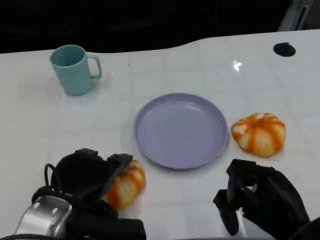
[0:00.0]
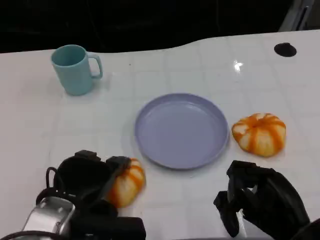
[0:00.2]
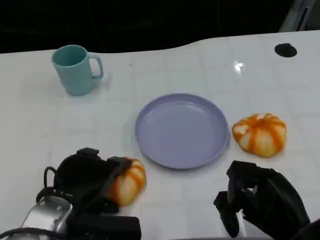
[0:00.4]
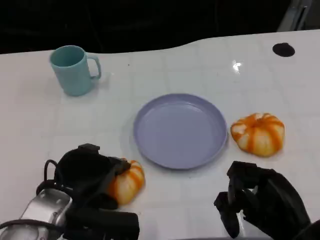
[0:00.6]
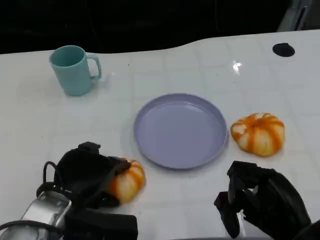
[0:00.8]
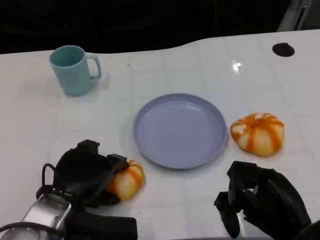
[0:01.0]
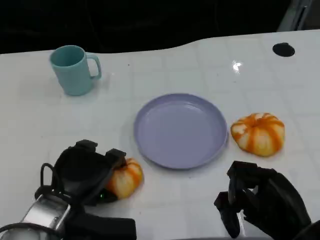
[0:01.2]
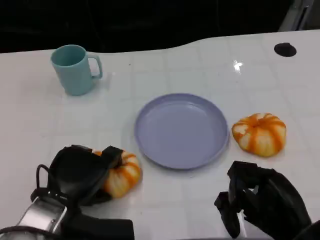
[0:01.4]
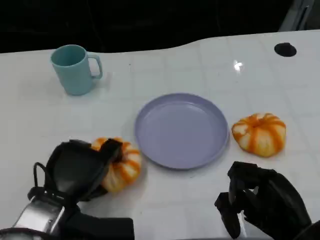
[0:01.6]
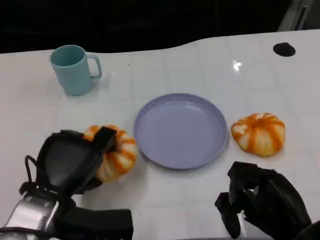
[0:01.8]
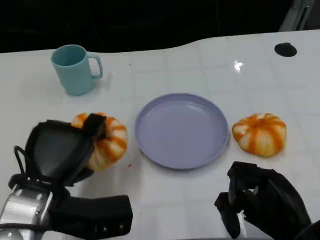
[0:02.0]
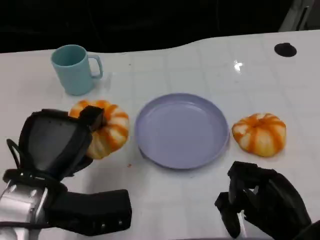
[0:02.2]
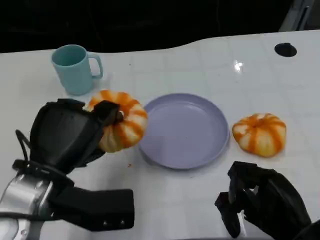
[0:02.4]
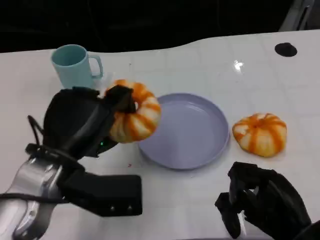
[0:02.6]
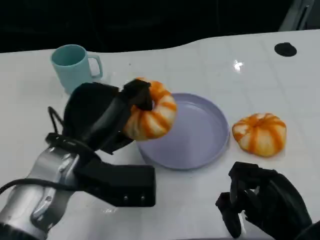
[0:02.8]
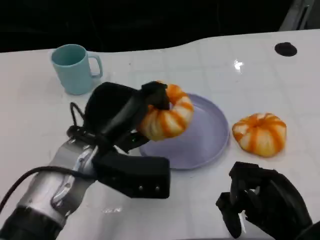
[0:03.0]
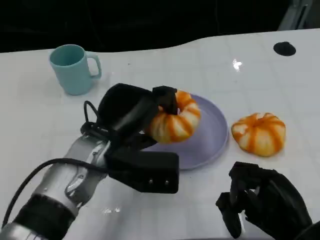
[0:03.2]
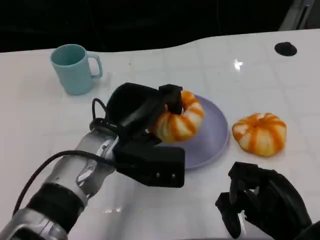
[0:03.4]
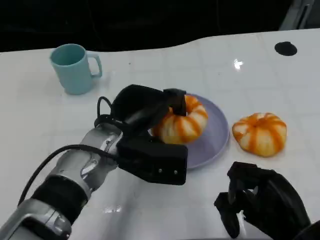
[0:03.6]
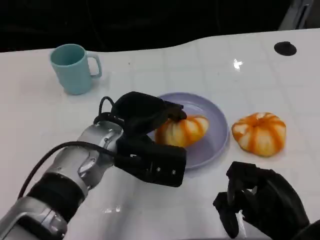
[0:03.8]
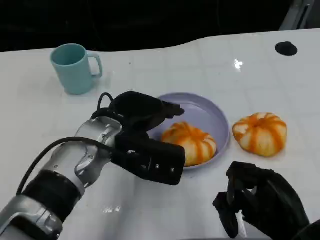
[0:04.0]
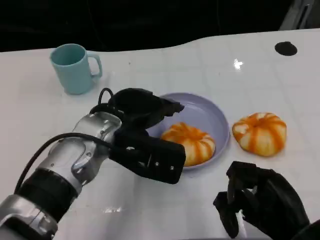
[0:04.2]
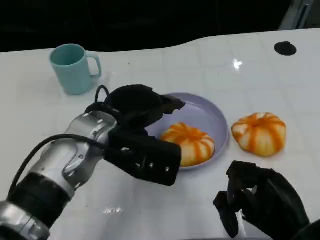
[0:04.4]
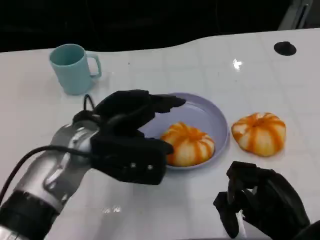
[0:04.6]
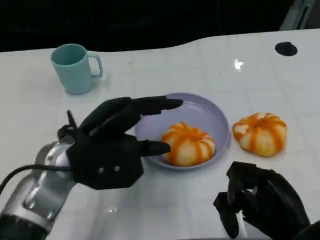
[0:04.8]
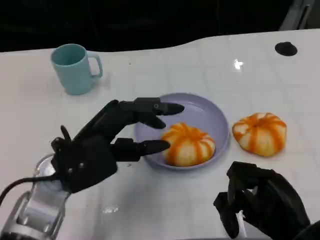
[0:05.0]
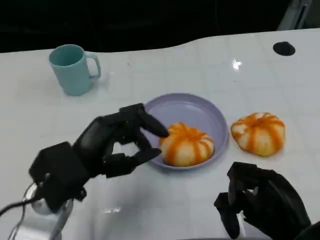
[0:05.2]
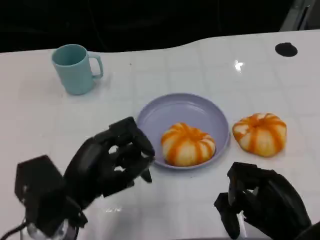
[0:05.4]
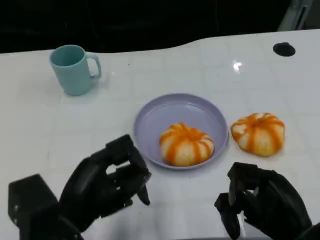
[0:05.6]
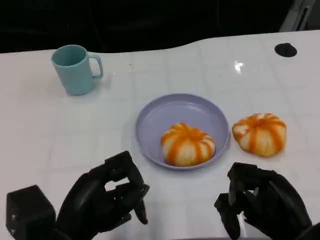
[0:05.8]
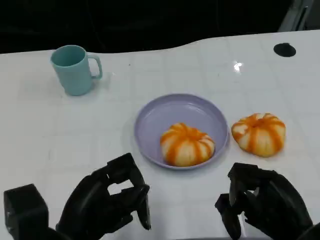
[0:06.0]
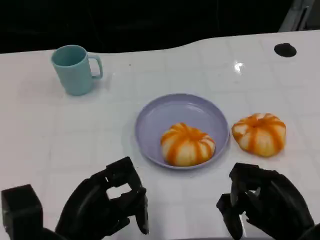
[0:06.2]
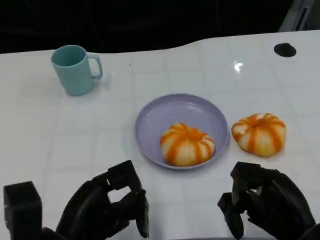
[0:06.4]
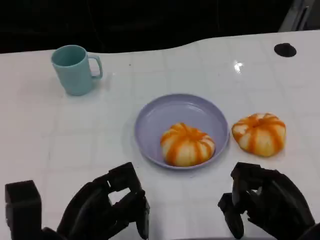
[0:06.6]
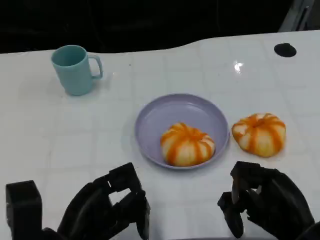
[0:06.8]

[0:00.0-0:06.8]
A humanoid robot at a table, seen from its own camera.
Task of the whole recording: Grasp the bread from the table and place it into the plate.
0.0 to 1.4 s: The hands stay close to where they were, moving slightly.
1.4 to 2.8 s: The left hand heads upward, covering about 10 cm.
2.8 to 4.0 s: The left hand ends up some 5 cm from where it was.
4.0 to 5.4 s: The left hand travels backward and to the left by roughly 15 cm.

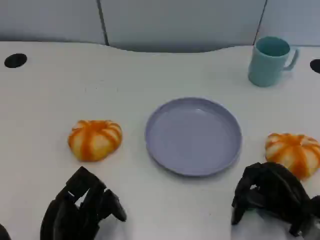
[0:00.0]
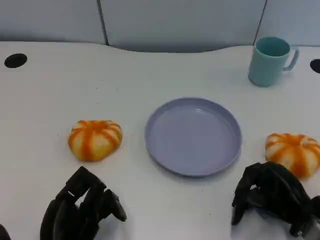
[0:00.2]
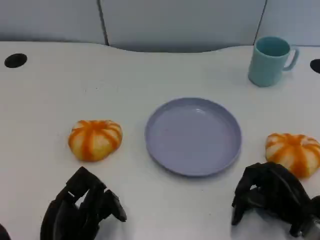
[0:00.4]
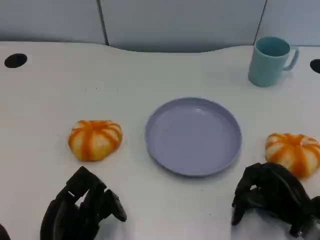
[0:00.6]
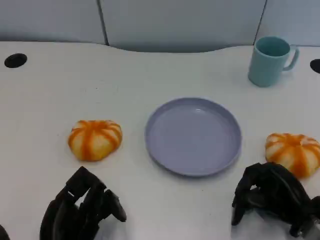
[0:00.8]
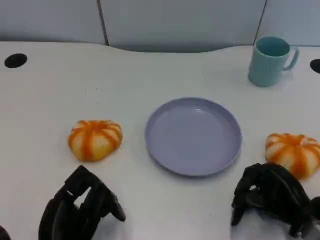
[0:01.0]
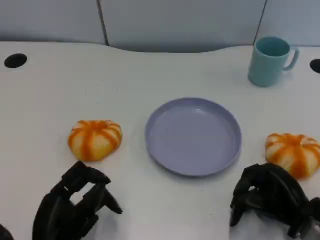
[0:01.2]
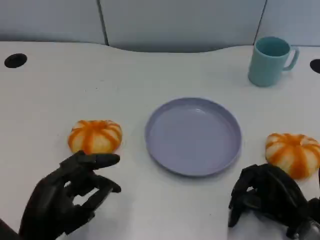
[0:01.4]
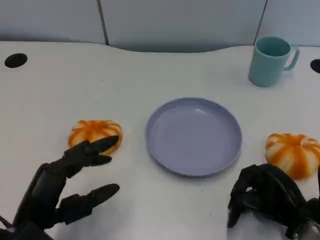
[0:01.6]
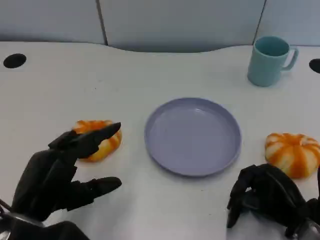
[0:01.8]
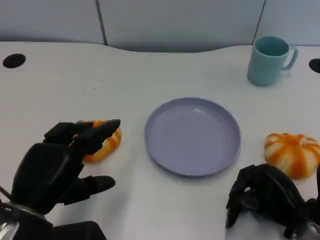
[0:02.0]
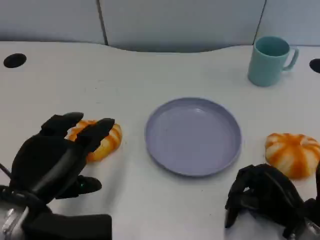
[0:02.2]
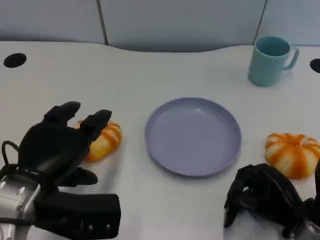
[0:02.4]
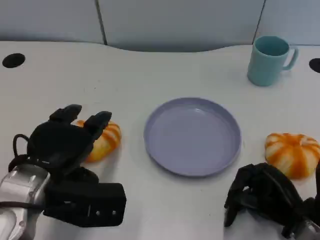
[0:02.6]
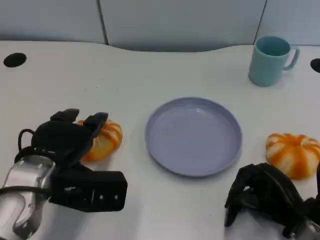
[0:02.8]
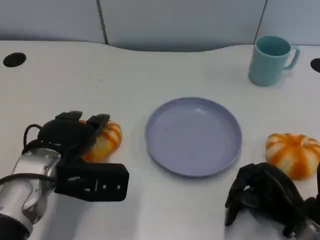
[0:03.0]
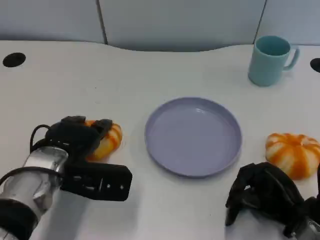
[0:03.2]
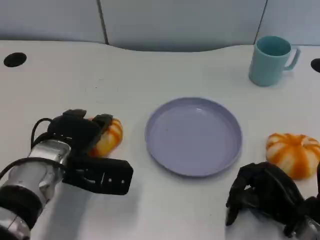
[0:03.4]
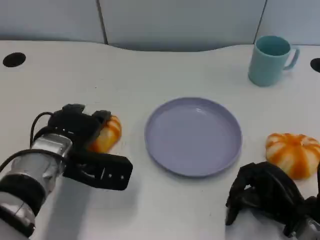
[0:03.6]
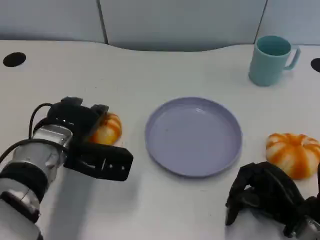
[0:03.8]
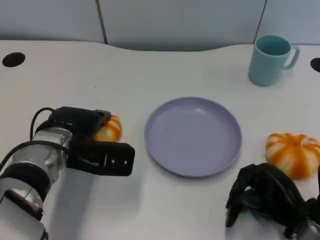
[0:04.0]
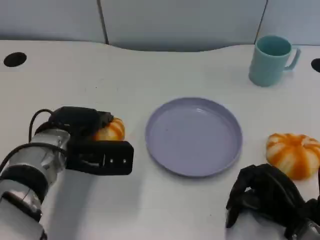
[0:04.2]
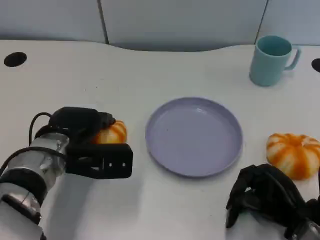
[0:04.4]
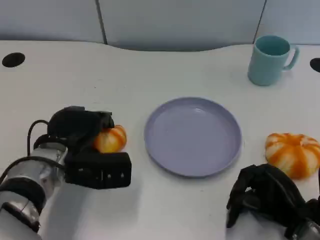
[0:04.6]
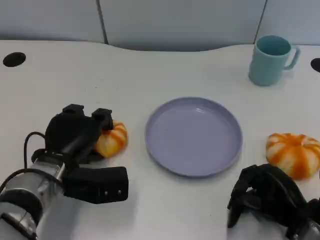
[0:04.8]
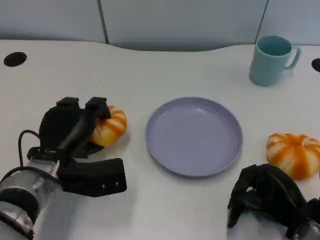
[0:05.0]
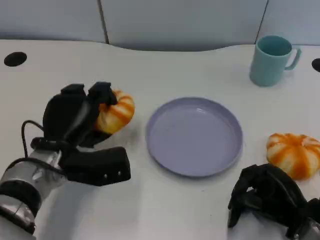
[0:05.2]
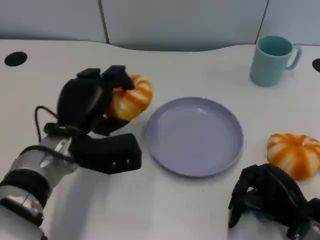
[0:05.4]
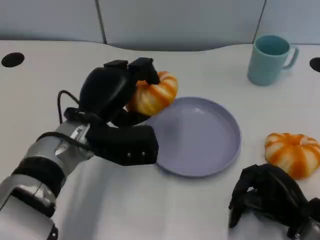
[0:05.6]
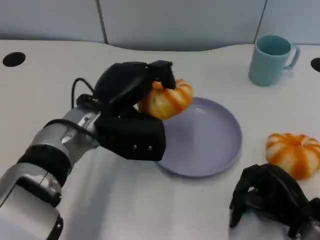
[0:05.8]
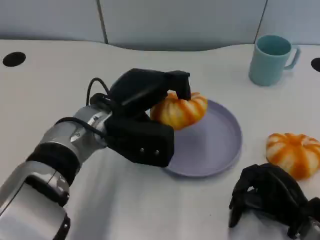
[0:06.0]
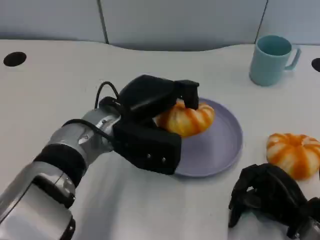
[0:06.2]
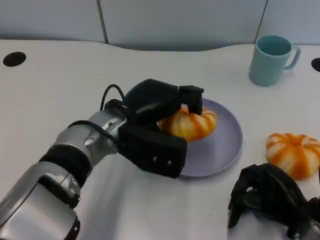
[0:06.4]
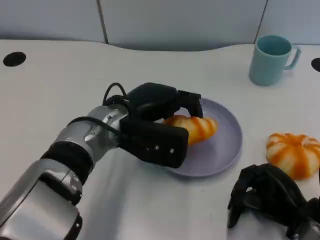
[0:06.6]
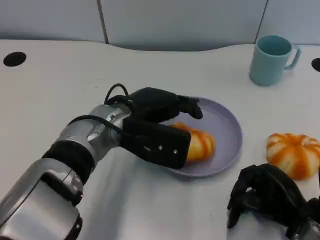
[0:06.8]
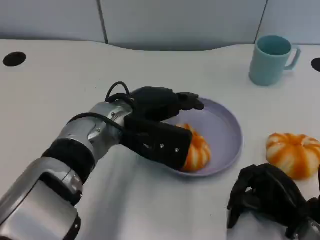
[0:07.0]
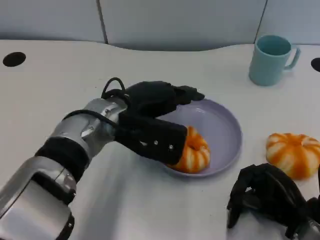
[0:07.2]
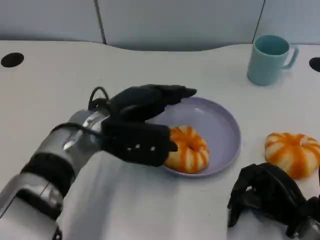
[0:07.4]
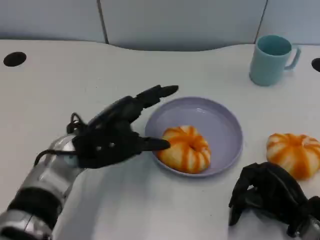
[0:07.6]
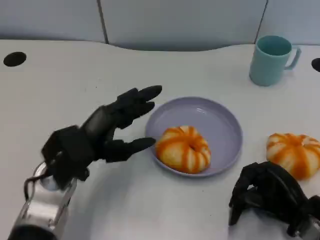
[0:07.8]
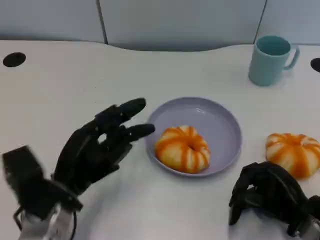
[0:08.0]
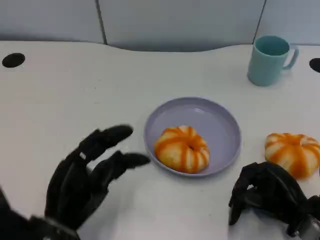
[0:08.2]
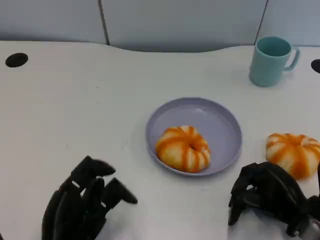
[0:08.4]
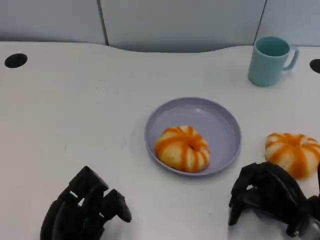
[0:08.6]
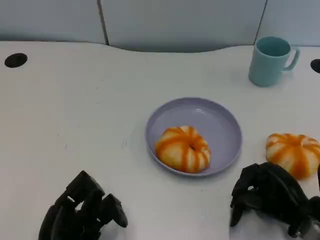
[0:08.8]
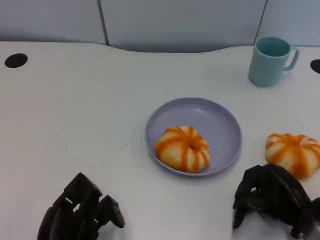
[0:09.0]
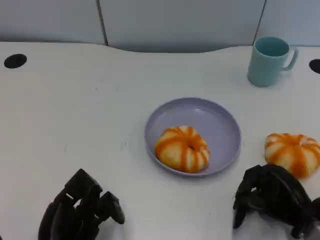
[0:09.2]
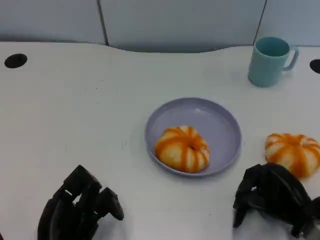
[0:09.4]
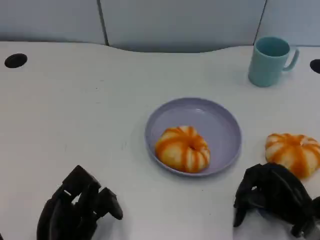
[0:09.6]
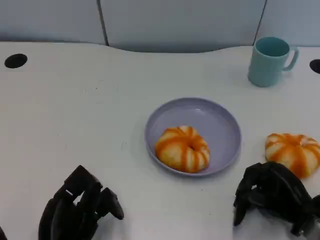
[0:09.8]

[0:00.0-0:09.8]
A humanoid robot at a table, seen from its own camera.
Task of the whole recording: Grasp the bread from the table and place it into the plate.
1.4 to 2.8 s: The left hand shifts about 10 cm forward.
2.8 to 4.2 s: The left hand heads forward, covering roughly 5 cm.
4.2 to 5.6 s: The left hand shifts by approximately 5 cm.
7.0 to 8.4 s: The left hand is displaced backward, to the left and downward by about 25 cm.
8.4 to 9.8 s: There are only small adjustments of the hands.

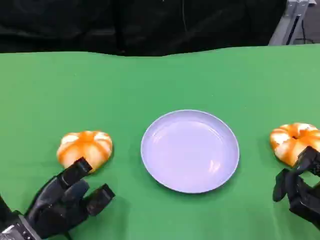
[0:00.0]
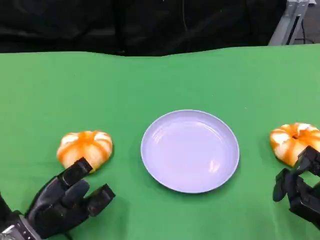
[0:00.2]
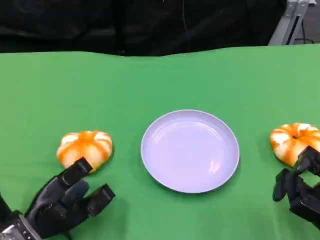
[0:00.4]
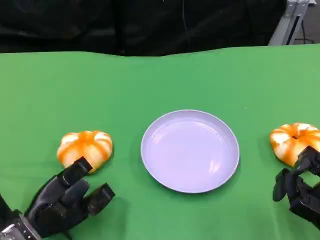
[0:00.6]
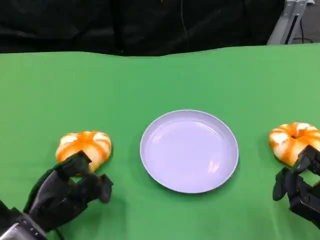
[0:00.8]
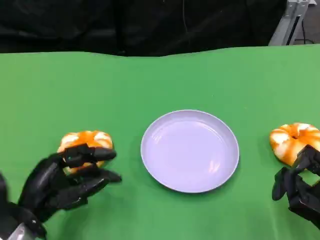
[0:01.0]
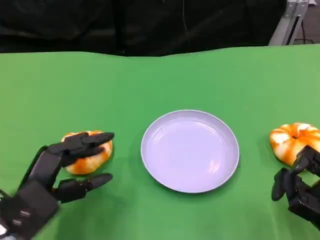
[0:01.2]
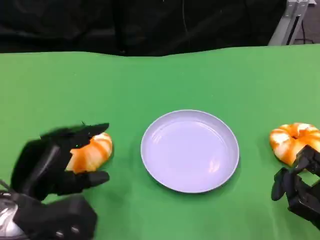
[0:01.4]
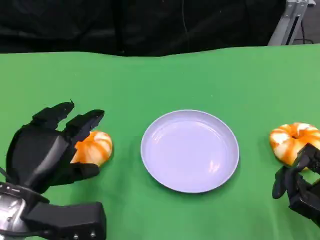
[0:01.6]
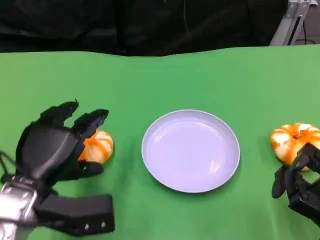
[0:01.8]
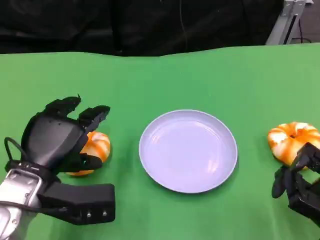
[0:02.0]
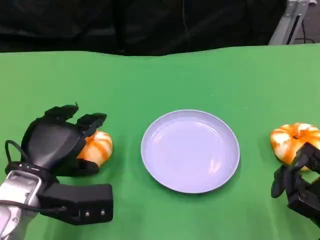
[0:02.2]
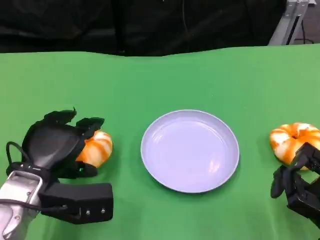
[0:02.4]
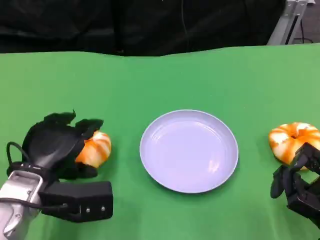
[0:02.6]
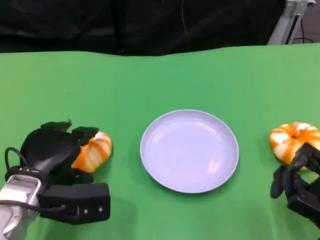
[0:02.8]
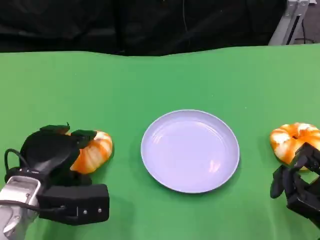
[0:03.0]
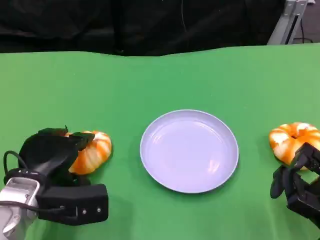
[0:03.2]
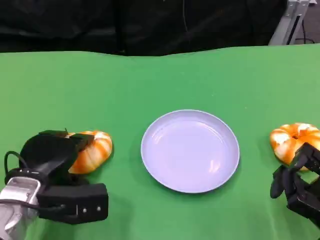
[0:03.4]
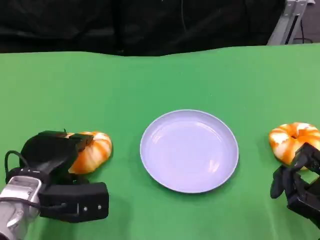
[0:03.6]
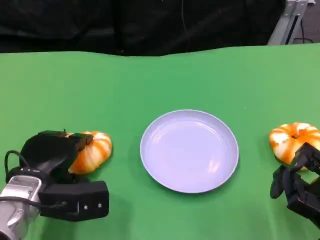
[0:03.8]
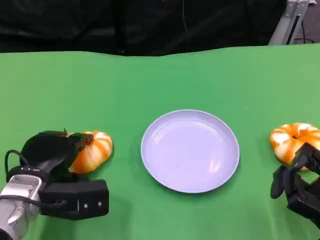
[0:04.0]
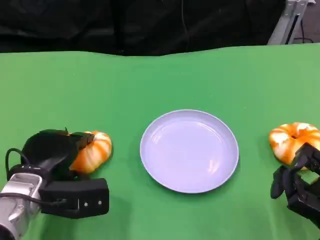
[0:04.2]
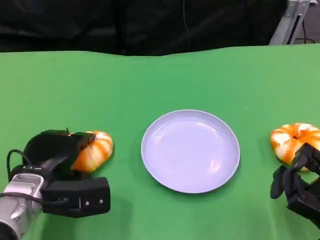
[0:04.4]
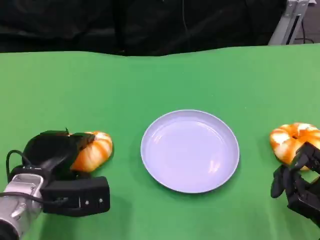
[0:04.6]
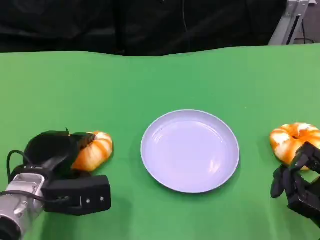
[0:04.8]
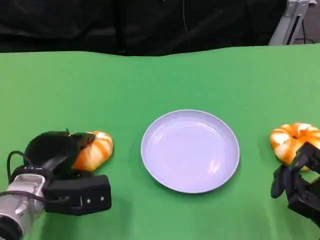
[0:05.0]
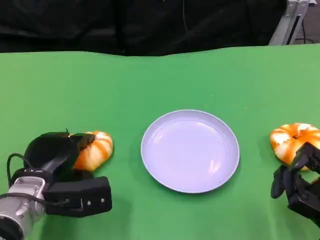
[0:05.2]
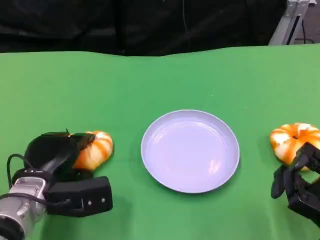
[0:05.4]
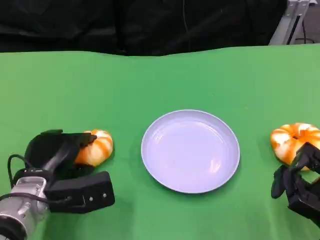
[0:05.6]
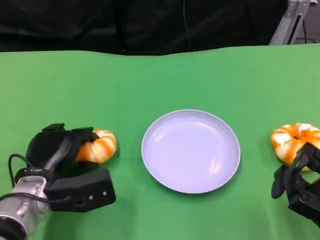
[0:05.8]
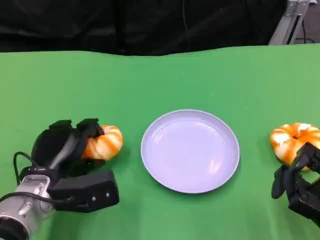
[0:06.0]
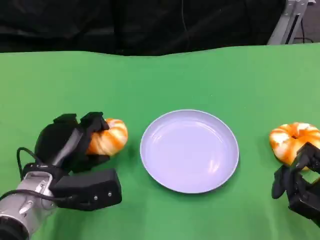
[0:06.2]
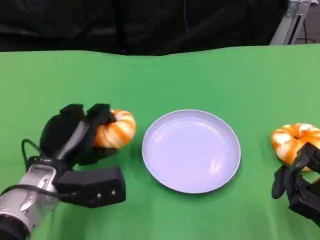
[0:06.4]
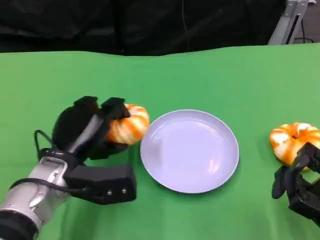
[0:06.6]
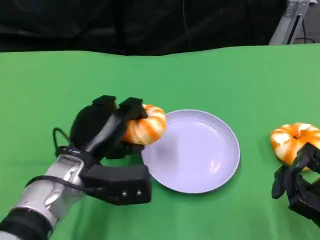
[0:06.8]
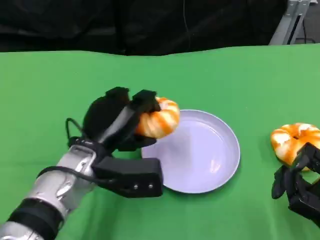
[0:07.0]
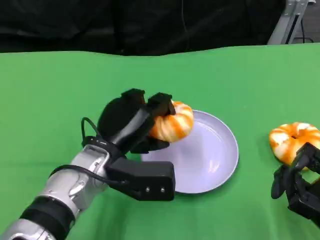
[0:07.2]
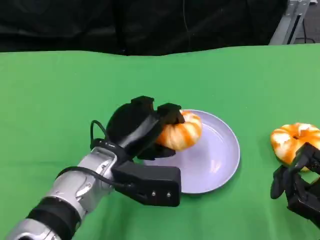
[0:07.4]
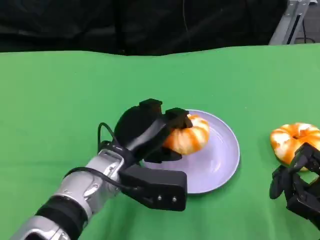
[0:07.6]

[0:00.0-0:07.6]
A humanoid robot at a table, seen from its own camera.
Task of the whole recording: Grasp the bread from the table and place it into the plate.
0.0 to 1.6 s: The left hand is displaced upward by about 10 cm.
1.6 to 3.0 s: The left hand shifts by about 5 cm.
3.0 to 6.0 s: The hands stay close to where they were, moving slightly.
6.0 to 7.6 s: The left hand heads to the right, covering about 10 cm.
